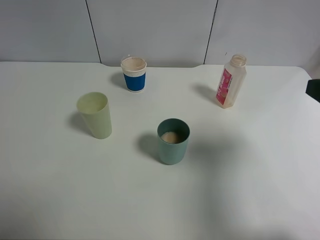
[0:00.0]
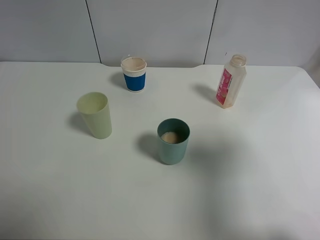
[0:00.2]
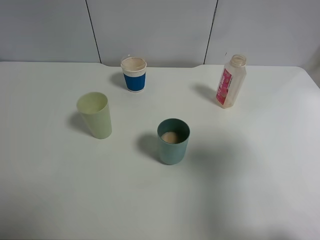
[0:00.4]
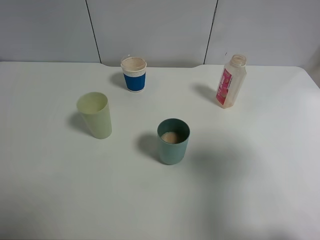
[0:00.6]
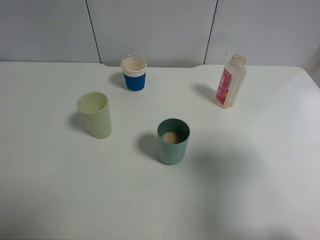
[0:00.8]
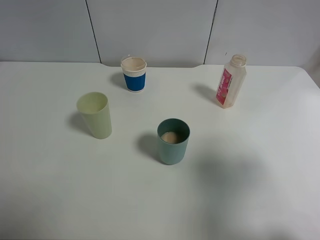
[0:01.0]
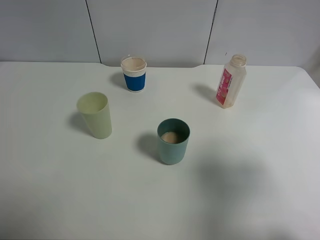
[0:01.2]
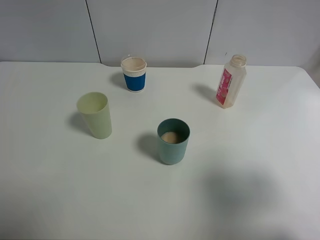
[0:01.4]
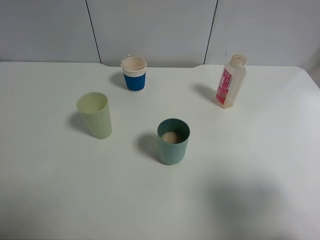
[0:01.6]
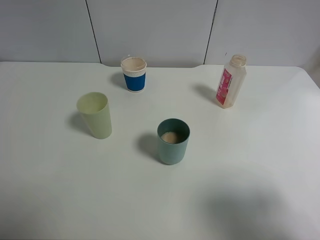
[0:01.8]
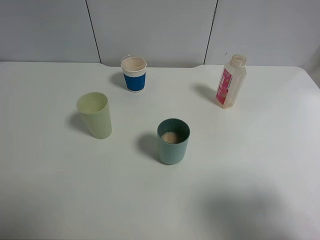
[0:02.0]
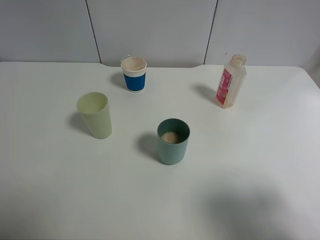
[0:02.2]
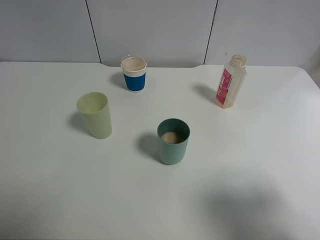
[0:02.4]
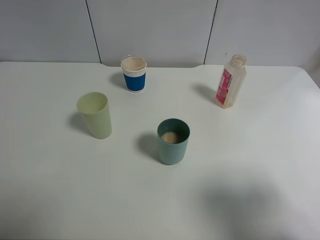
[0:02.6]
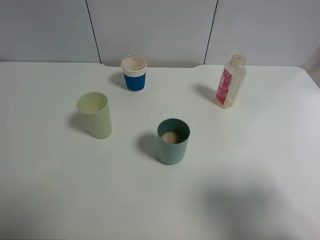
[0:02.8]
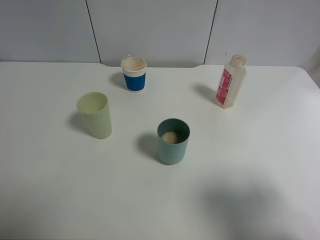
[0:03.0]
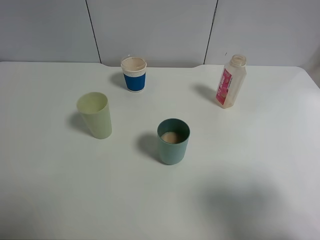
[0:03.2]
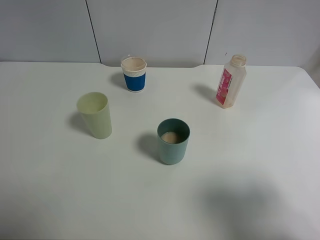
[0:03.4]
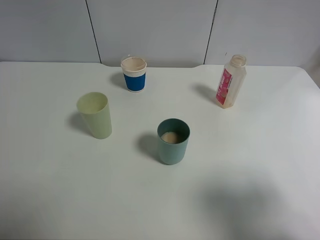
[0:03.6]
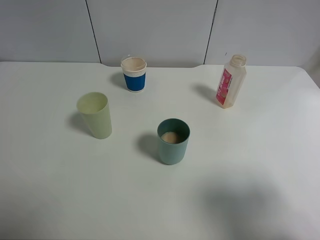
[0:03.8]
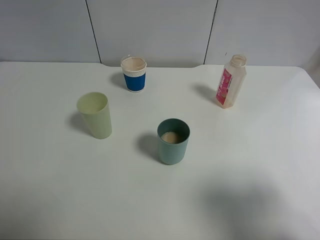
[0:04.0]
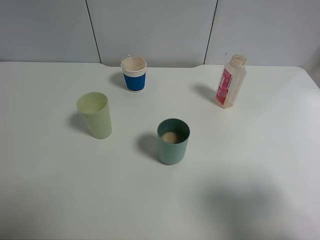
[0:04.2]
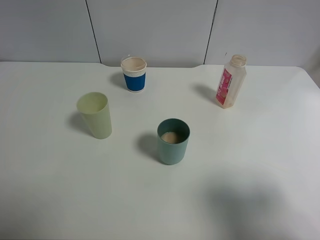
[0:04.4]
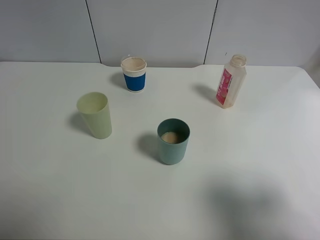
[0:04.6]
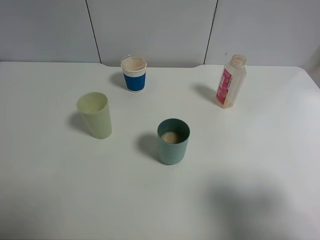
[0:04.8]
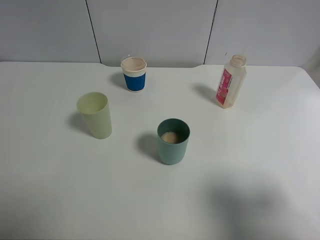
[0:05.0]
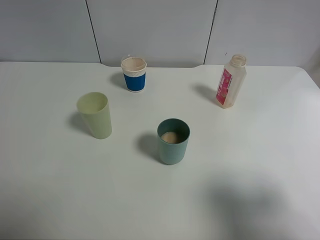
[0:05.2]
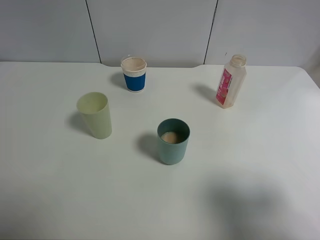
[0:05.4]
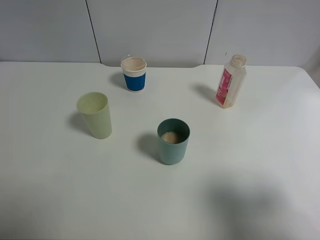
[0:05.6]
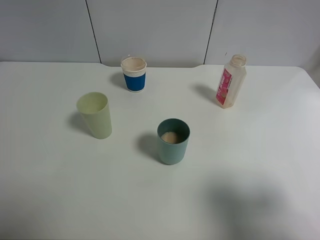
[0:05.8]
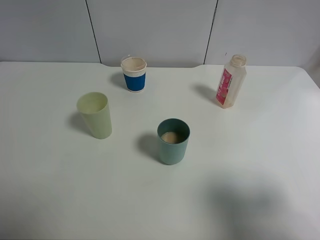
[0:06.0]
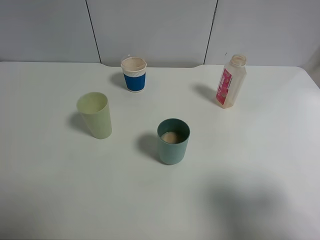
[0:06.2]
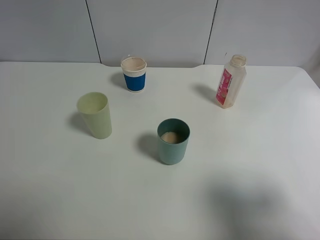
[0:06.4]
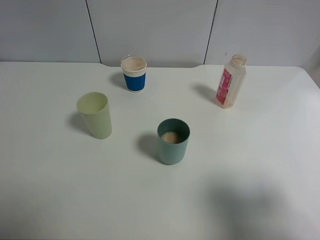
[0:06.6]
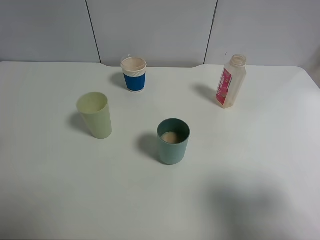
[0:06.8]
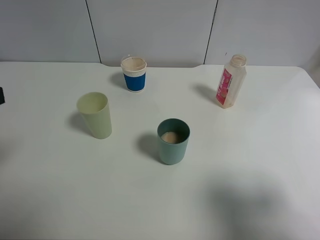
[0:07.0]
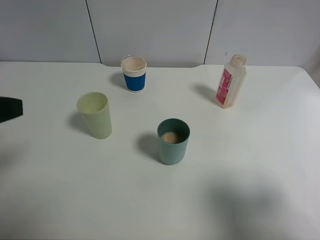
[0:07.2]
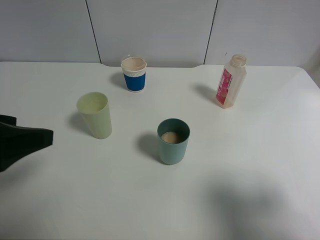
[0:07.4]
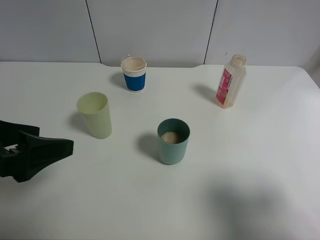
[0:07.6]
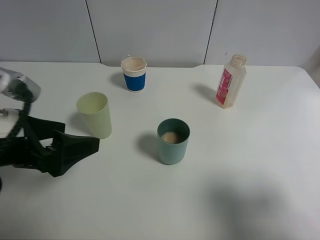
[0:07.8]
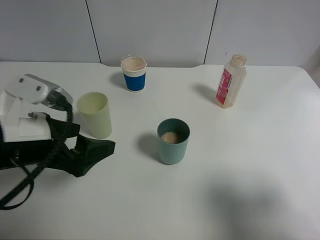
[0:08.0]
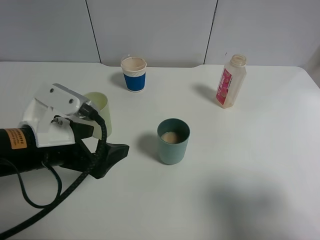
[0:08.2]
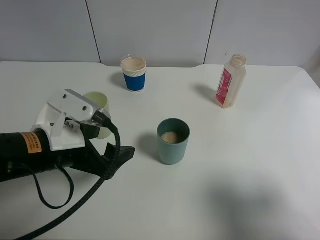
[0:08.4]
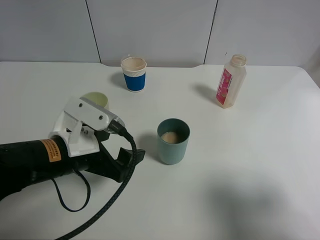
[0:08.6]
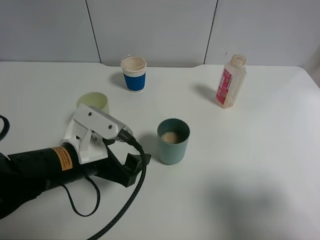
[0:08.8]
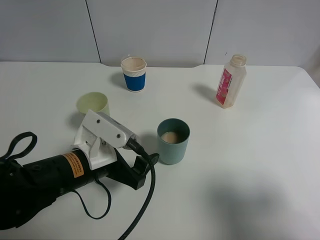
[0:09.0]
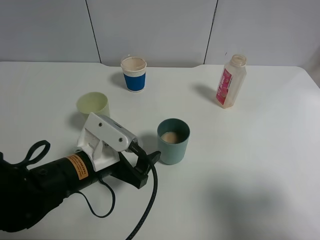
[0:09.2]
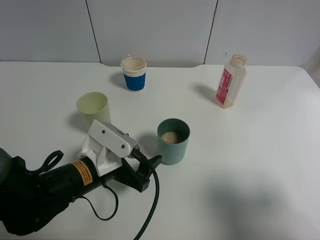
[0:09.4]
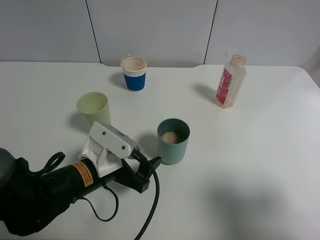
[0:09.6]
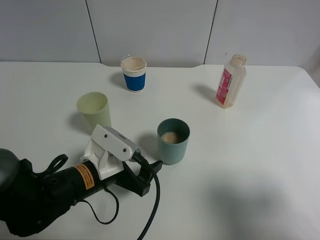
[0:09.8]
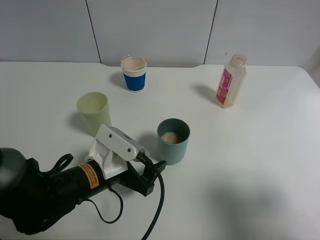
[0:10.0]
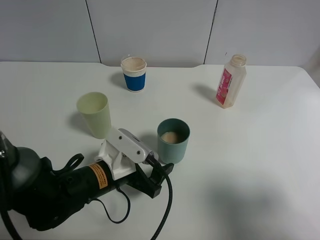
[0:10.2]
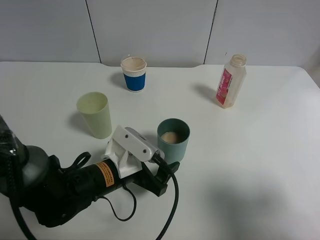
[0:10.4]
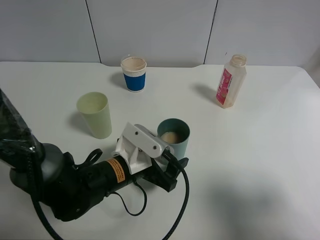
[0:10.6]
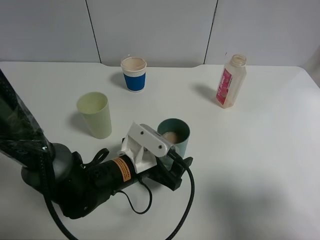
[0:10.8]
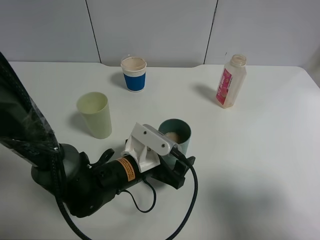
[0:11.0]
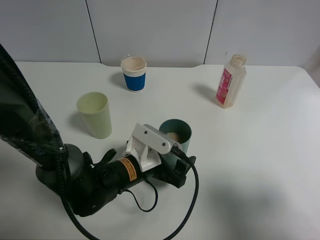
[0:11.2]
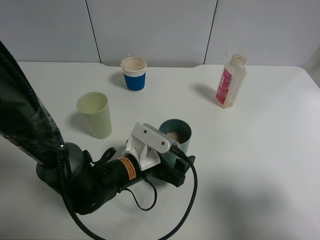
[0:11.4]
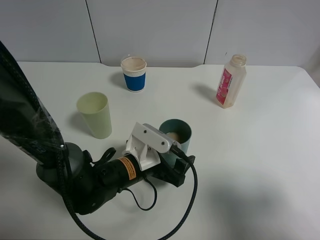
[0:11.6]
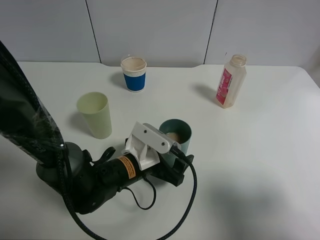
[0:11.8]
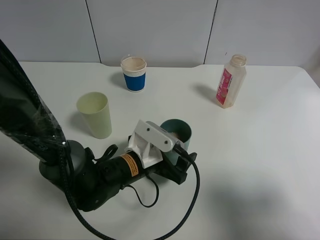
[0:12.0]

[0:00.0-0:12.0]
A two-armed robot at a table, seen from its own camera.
Task of the whole recording: use a clamp to hold the bottle of the drink, pour the beverage into a random cup, then clamp the cup containing the drink and pour the drink into another random cup.
0:00.0 to 0:01.6: The right gripper heads backward, covering about 10 cm.
0:03.0 to 0:04.4: The two grippers keep their place.
0:04.4 to 0:06.0: Neither gripper changes place.
0:06.0 to 0:07.6: The left gripper goes approximately 15 cm forward and to the right.
0:07.6 to 0:09.0: The left gripper travels to the right and downward by approximately 15 cm.
0:09.0 to 0:10.4: The left gripper travels downward by roughly 5 cm.
0:10.4 to 0:12.0: The left gripper moves approximately 5 cm.

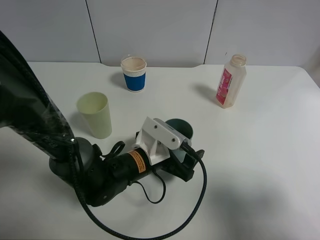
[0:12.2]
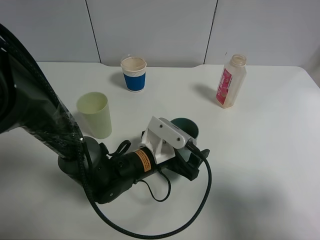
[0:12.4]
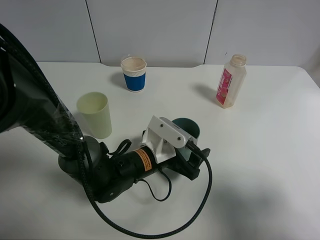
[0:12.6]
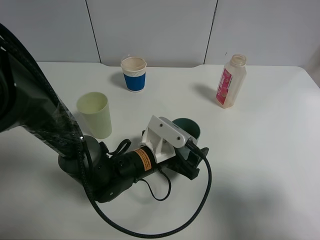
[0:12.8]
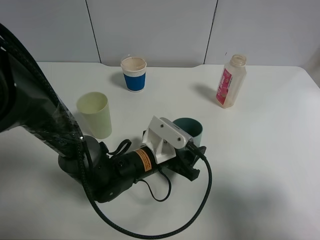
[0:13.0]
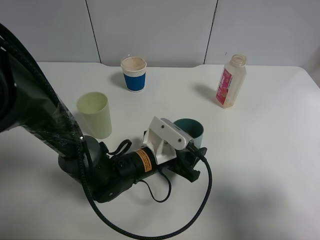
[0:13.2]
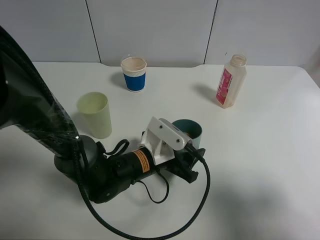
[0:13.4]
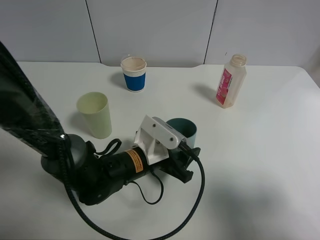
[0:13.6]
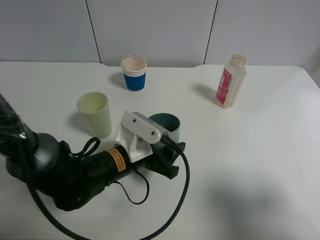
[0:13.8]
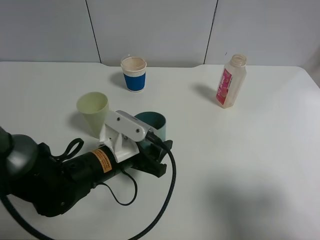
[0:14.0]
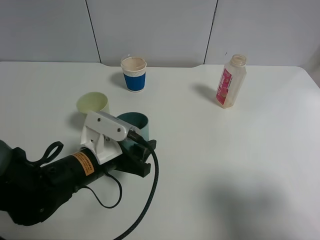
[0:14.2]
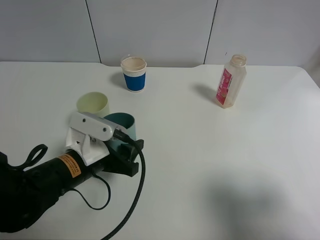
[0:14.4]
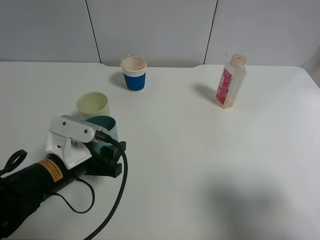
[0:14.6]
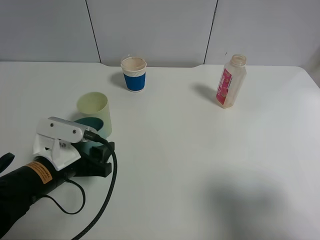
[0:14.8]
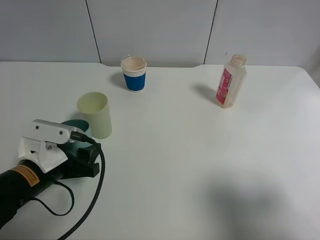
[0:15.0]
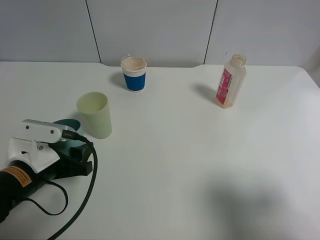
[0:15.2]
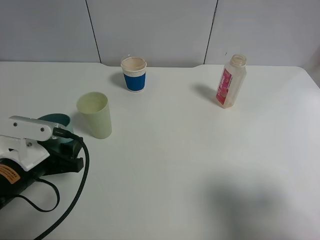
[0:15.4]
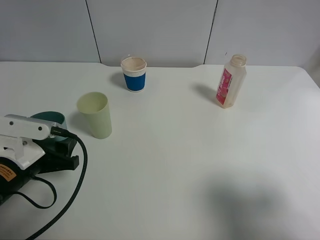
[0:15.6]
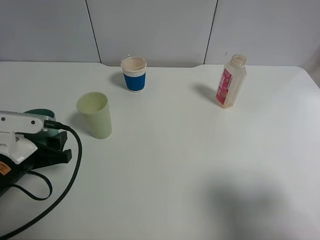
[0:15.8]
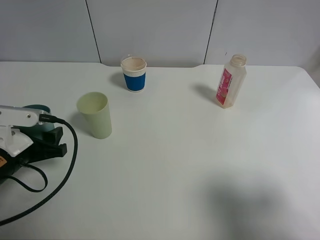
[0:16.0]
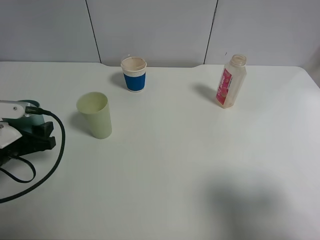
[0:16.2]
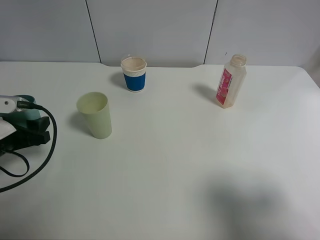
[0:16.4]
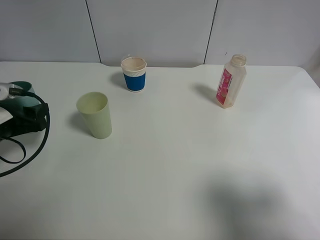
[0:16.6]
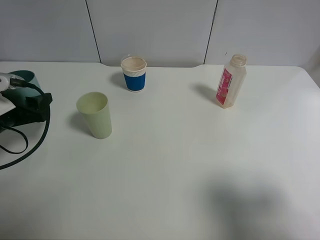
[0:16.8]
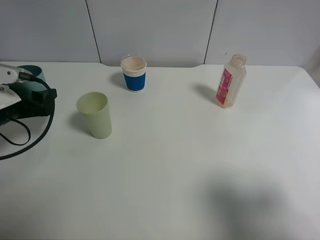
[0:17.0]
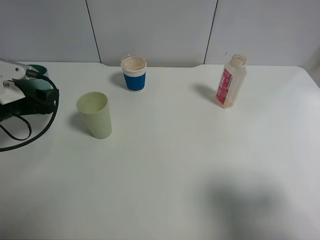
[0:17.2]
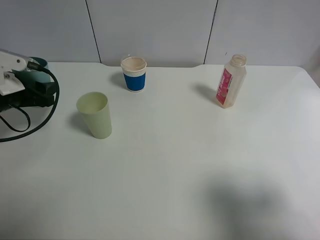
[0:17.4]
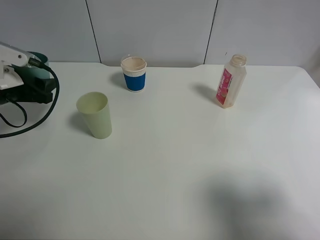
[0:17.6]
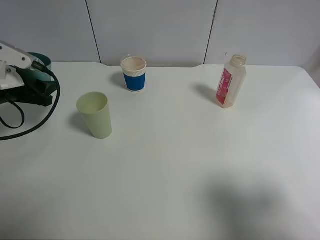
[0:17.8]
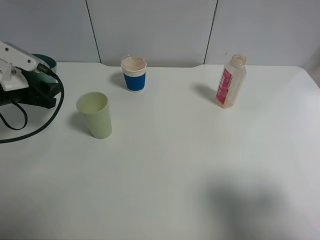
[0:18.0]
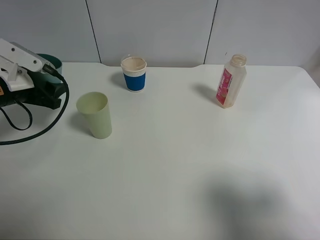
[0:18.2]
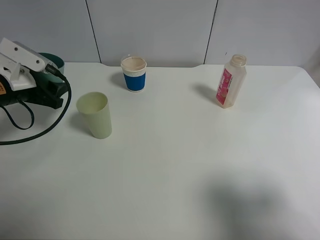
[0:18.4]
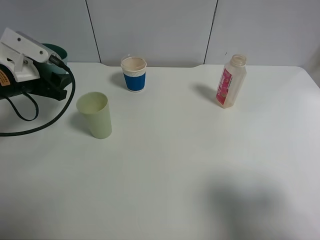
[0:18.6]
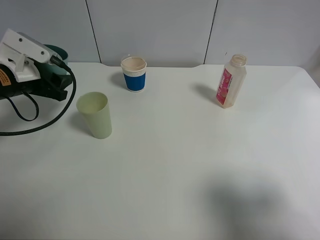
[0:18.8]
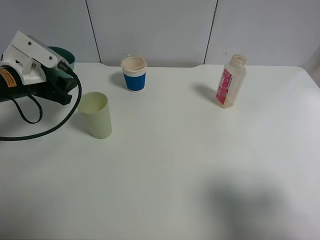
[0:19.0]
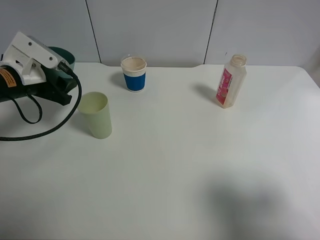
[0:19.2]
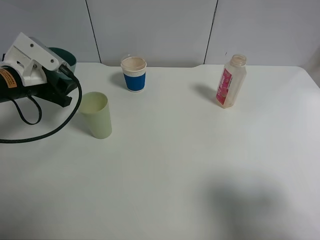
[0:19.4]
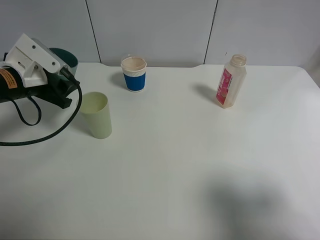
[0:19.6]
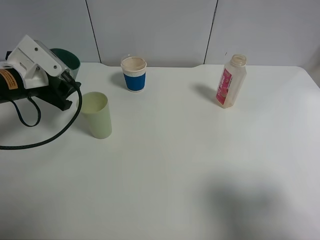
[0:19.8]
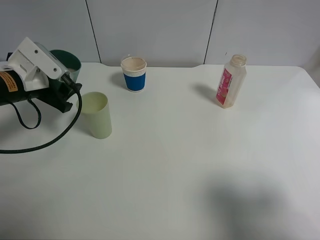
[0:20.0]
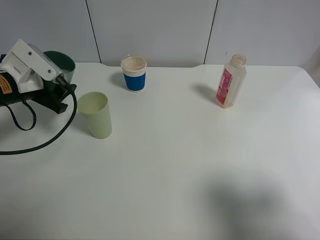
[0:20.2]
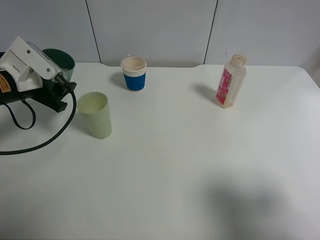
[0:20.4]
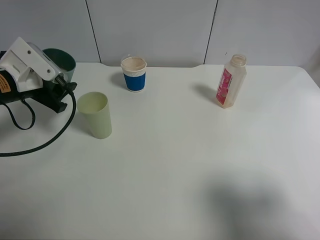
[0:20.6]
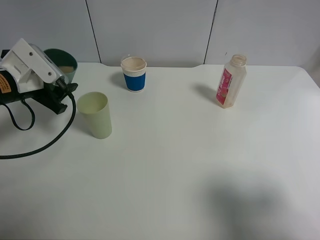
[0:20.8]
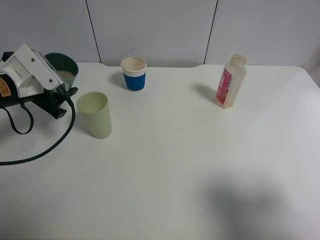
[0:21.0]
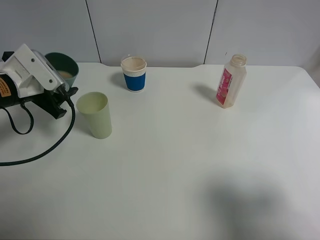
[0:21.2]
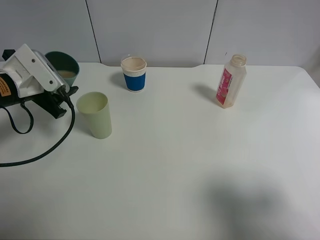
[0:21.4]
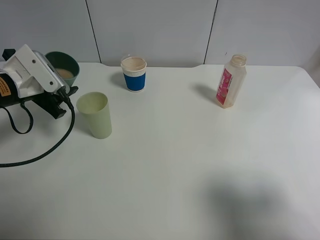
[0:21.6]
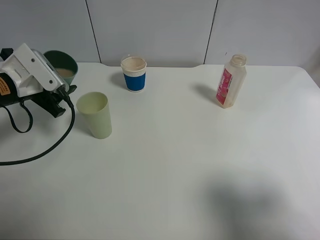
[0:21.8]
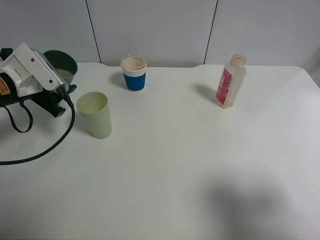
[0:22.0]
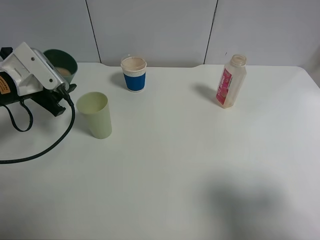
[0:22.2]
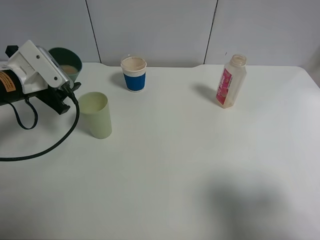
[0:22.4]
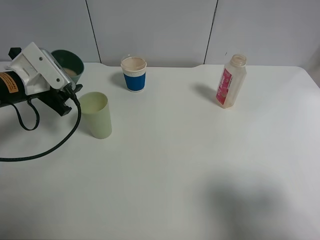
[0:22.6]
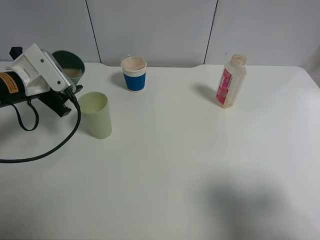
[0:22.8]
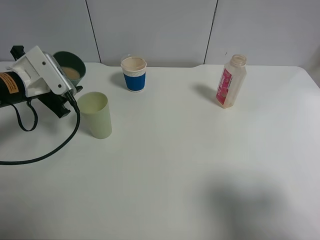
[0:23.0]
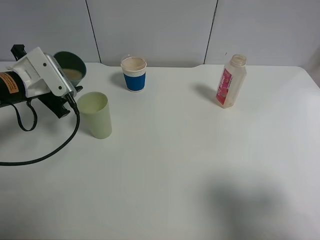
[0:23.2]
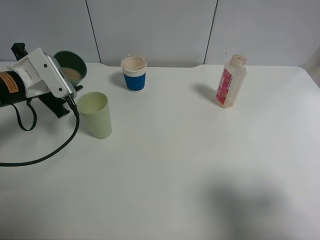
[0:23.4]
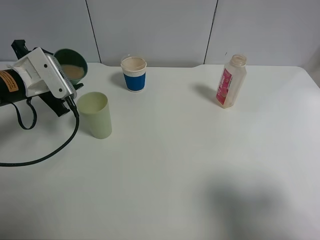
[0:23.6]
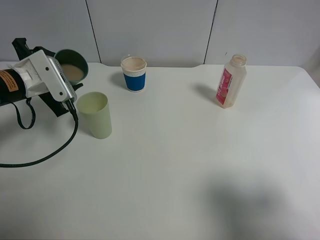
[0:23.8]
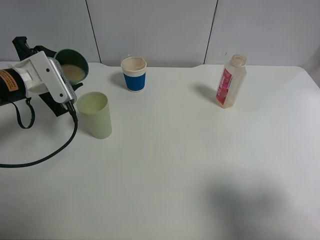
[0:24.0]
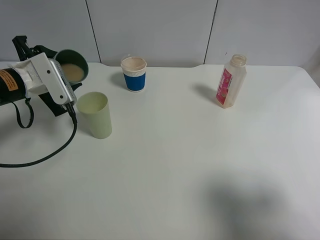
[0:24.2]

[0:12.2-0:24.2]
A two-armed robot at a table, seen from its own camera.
Task of the whole recording: use a clamp to hold the bottle of the drink, pour the beverage into a random cup, then clamp the cup containing the drink and pour the drink into another random cup.
0:12.2 to 0:13.8: The left gripper closes up.
0:13.8 to 0:15.2: The left gripper travels to the left by approximately 15 cm.
0:15.2 to 0:16.6: The left gripper heads to the left and forward, covering about 10 cm.
0:16.6 to 0:18.2: The left gripper shifts approximately 10 cm forward.
0:18.2 to 0:19.8: There are only small adjustments of the grippers.
0:19.8 to 0:21.2: There are only small adjustments of the grippers.
0:21.2 to 0:22.6: Both grippers stay put.
0:22.6 to 0:24.2: The grippers stay close to where they were, moving slightly.
